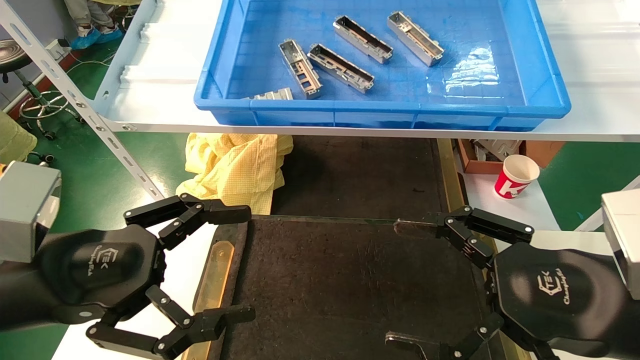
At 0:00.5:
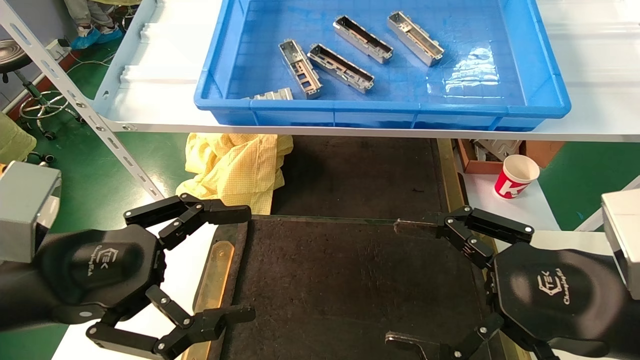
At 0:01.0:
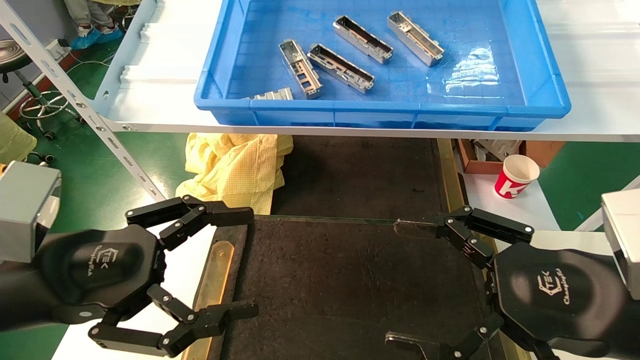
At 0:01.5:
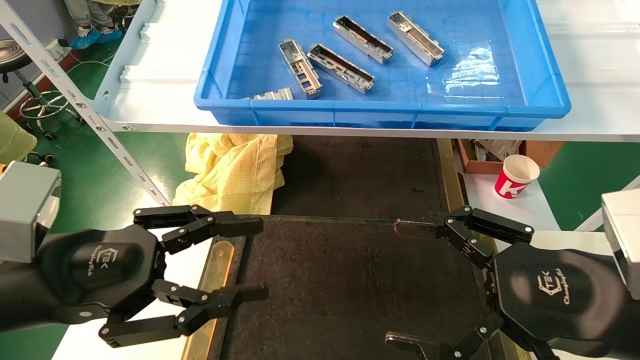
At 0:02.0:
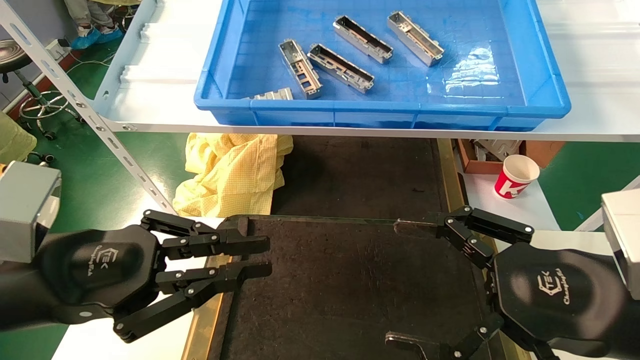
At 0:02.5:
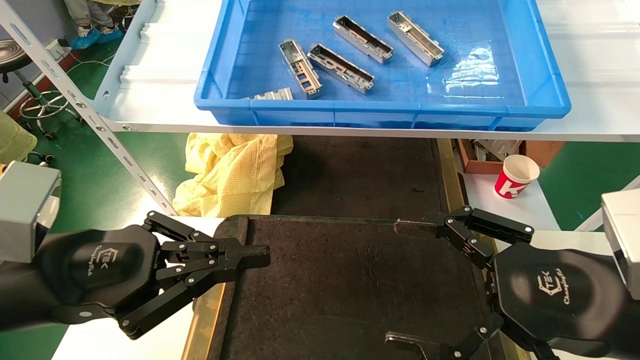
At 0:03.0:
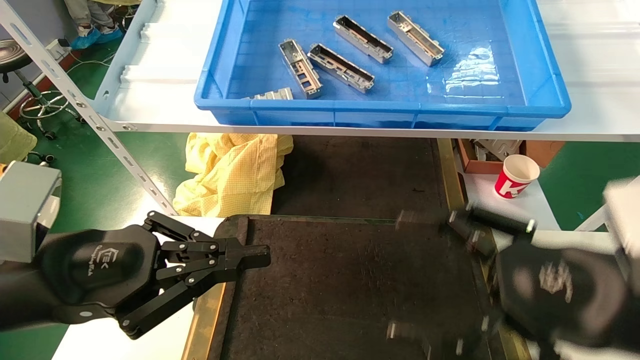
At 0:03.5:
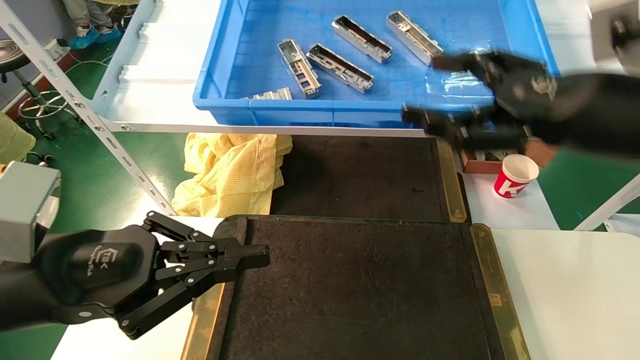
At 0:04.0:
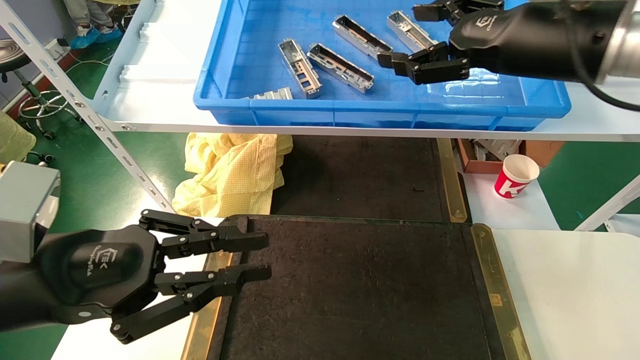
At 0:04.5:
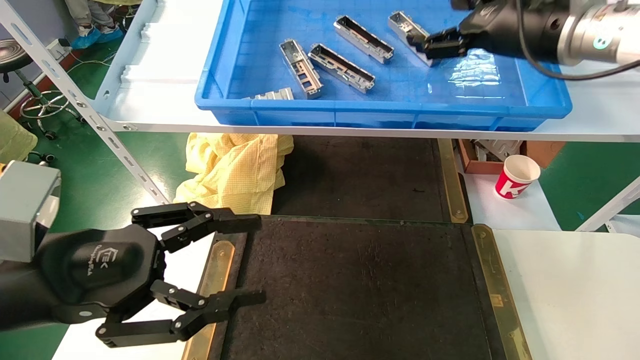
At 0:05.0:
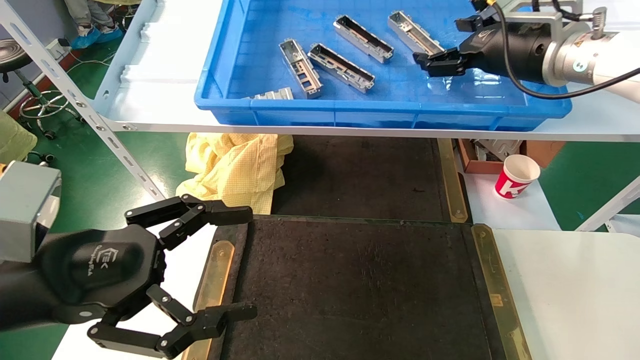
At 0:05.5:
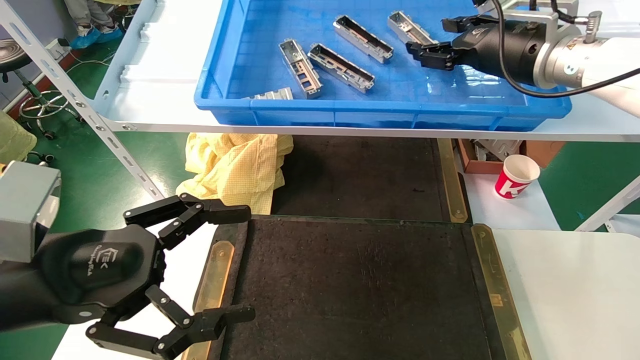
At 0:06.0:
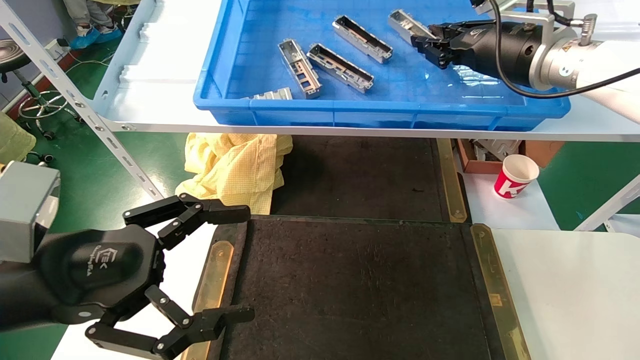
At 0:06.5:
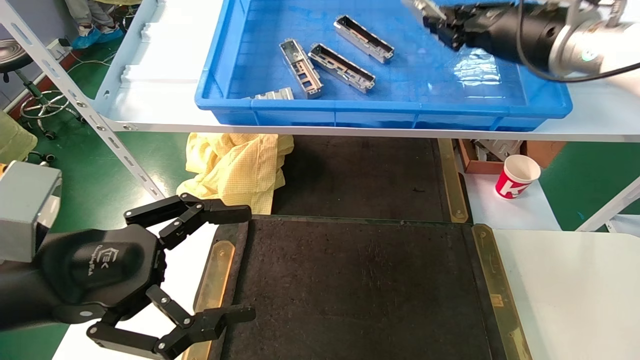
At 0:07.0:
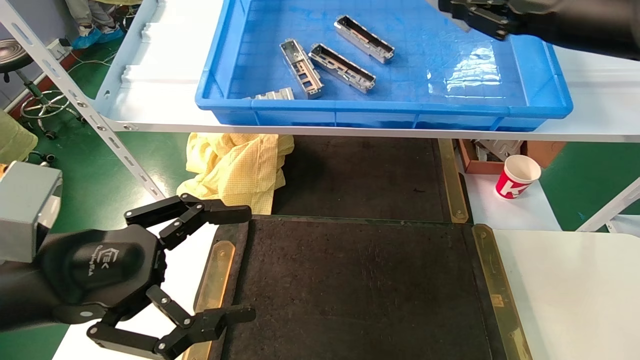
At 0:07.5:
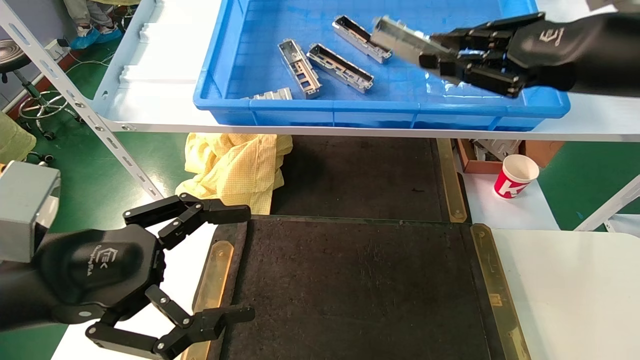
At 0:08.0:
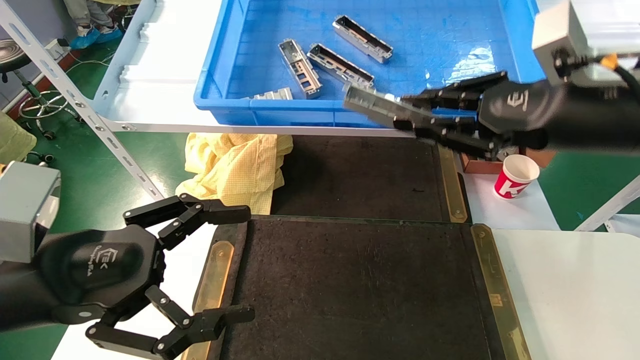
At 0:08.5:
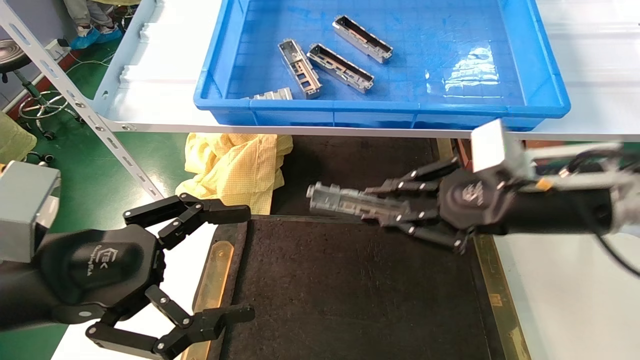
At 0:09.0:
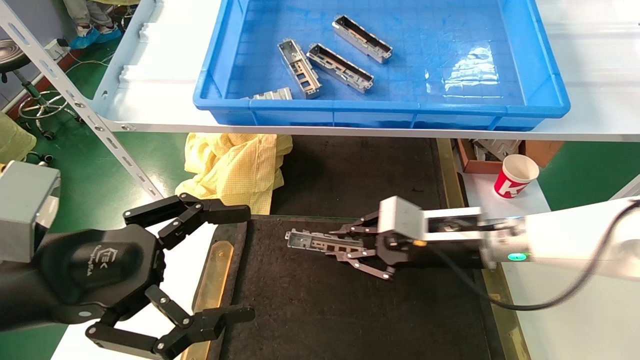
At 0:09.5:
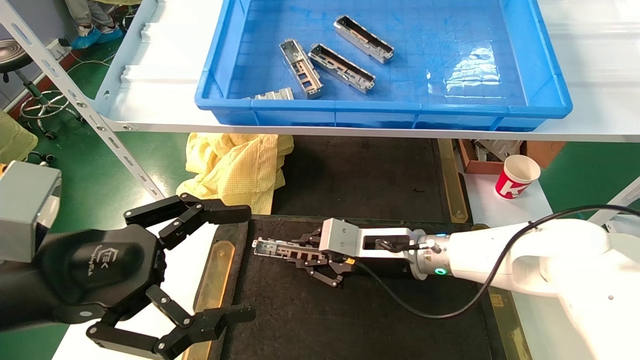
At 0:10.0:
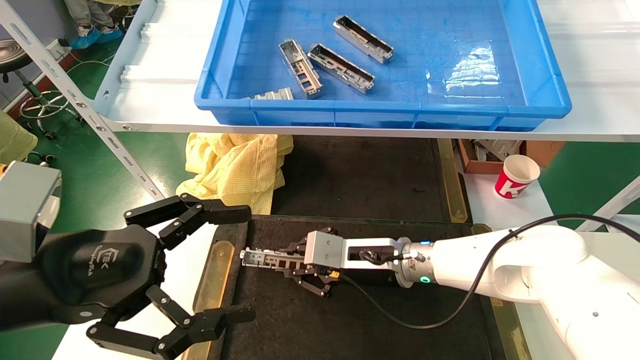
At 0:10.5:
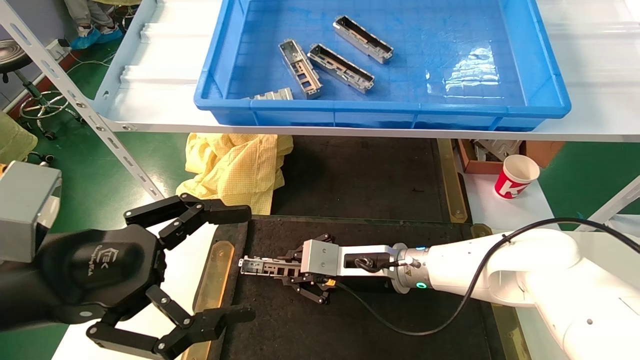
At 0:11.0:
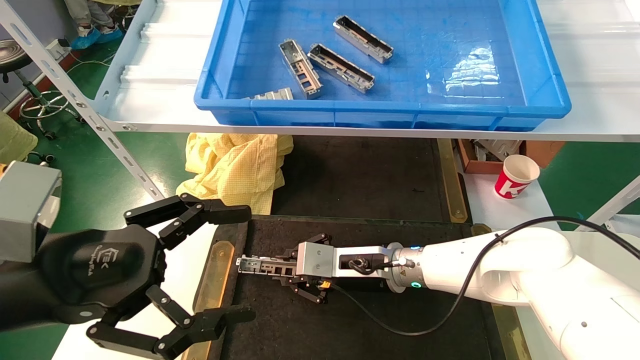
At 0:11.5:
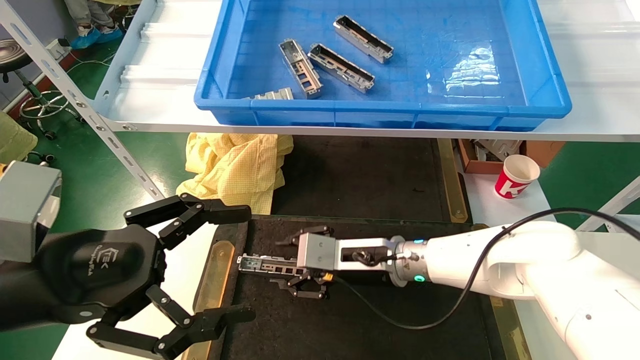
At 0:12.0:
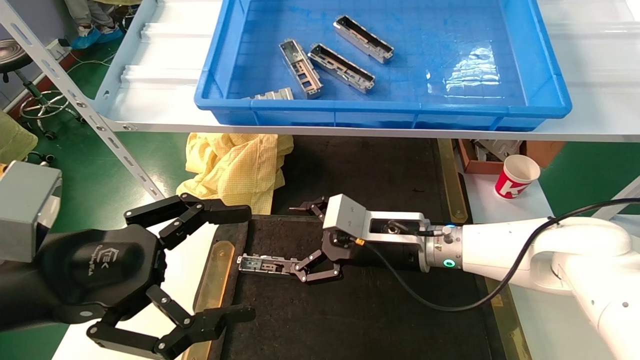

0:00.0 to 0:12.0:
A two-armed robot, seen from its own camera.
Task of the whole recording: grasp the part and place them on the black container.
Step, 0:03.5 to 0:06.5: Pick up and lift the front USB bracket from the feeding area.
Step, 0:07.0 to 0:11.0: Place the front USB bracket into the box.
0:00.0 to 0:02.0: The left gripper closes.
0:02.0 to 0:04.0: The right gripper travels upward and forward by about 25 cm.
0:04.0 to 0:06.0: The left gripper opens up, while the right gripper shifts roughly 10 cm forward, and closes up.
0:06.0 to 0:08.0: The right gripper heads backward, covering about 15 cm.
0:08.0 to 0:10.0: The right gripper goes approximately 30 cm downward, to the left and forward.
0:10.0 to 0:12.0: The right gripper opens its fingers.

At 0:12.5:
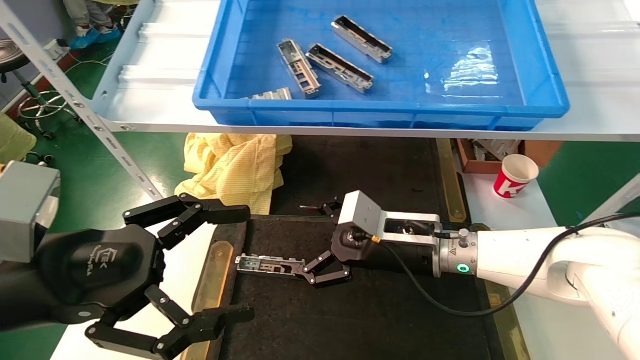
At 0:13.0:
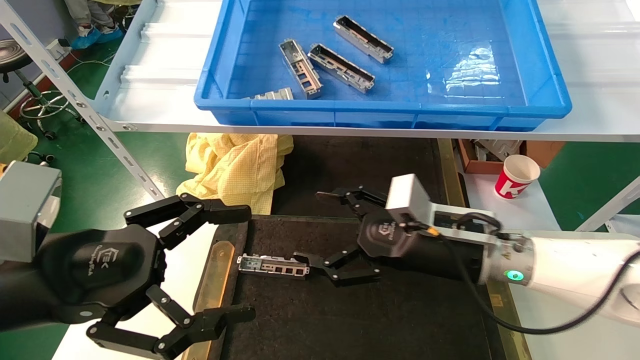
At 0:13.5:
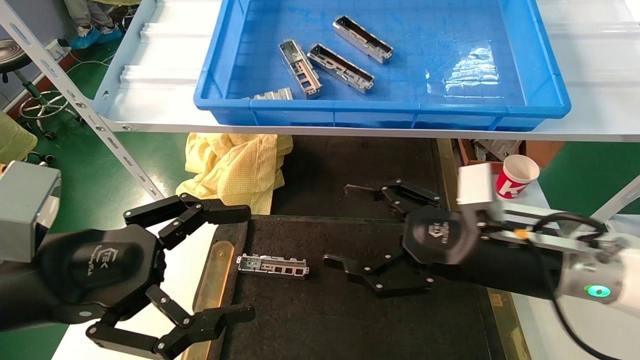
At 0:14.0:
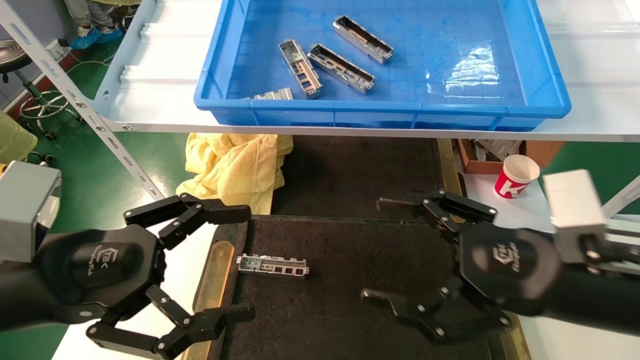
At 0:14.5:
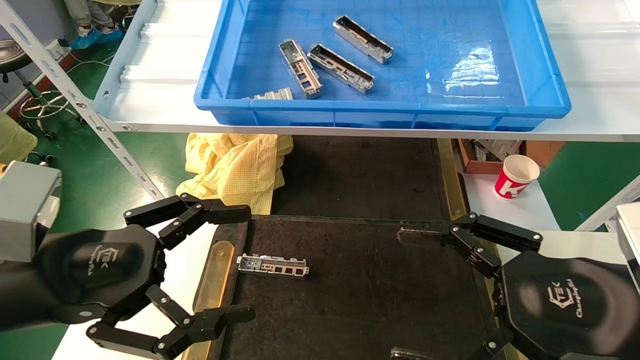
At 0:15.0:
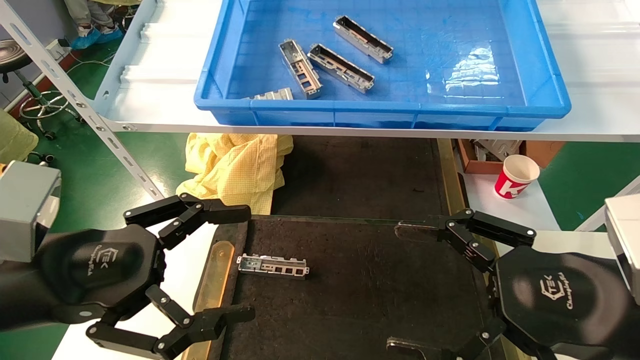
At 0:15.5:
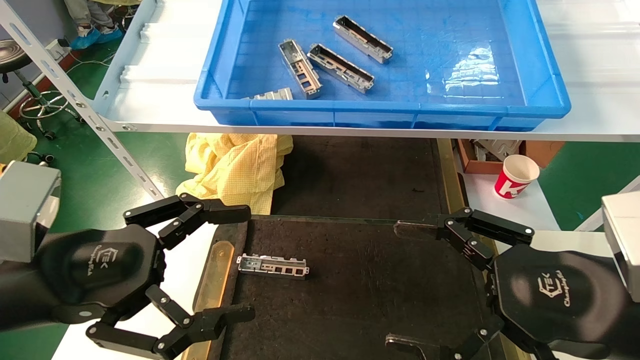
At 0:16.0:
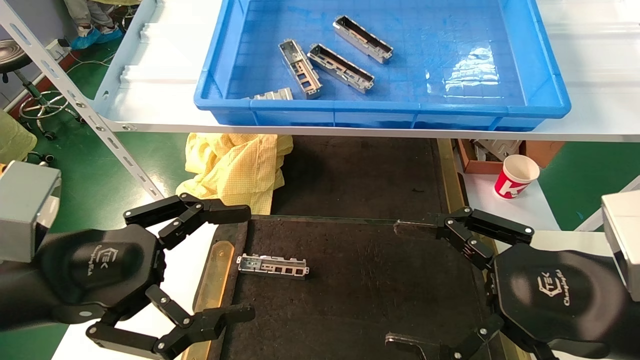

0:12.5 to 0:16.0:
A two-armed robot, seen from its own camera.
Task of the whole recording: grasp the part and place them on the black container.
0:12.5 to 0:14.5: The right gripper travels backward and to the right by about 25 cm.
0:14.5 to 0:16.0: Neither gripper changes place.
